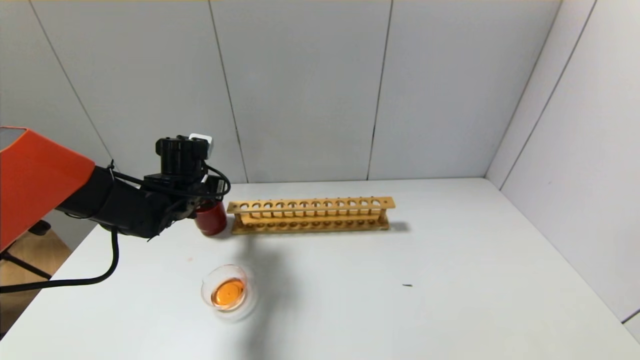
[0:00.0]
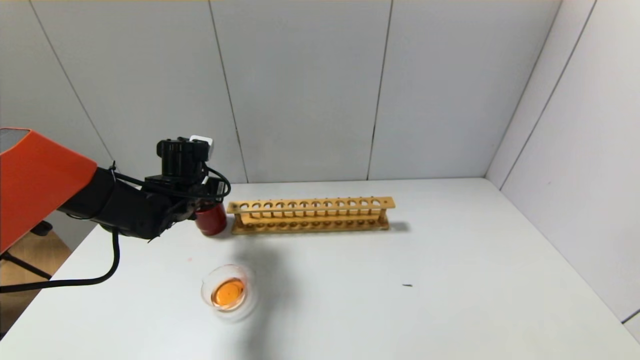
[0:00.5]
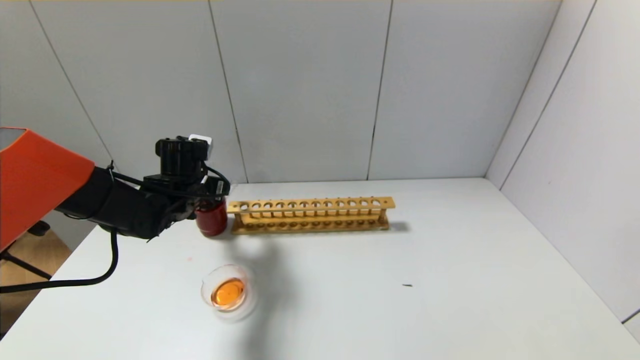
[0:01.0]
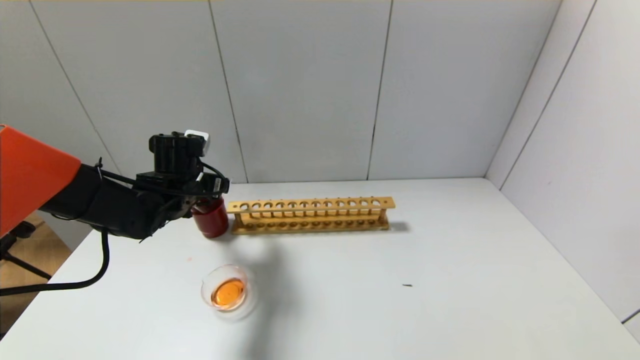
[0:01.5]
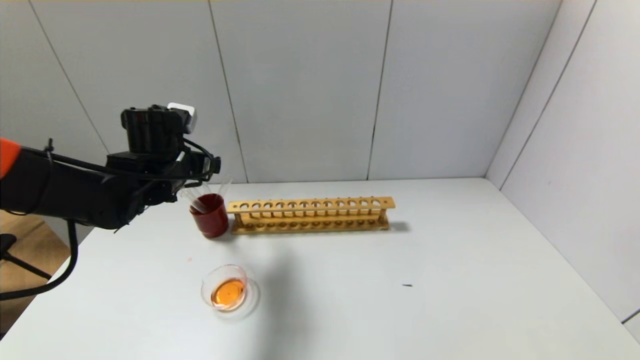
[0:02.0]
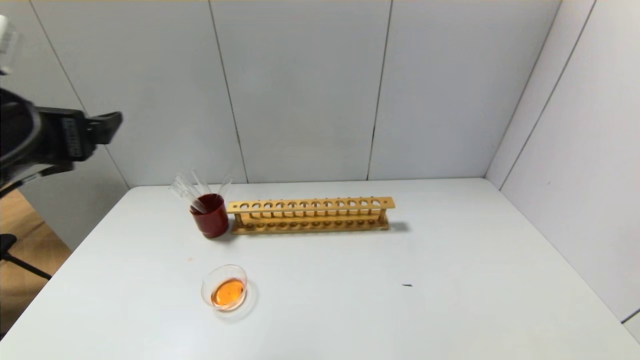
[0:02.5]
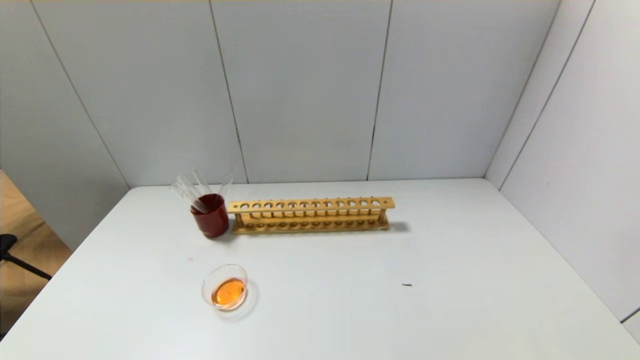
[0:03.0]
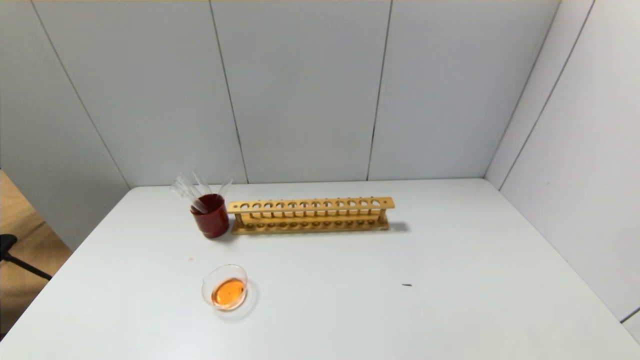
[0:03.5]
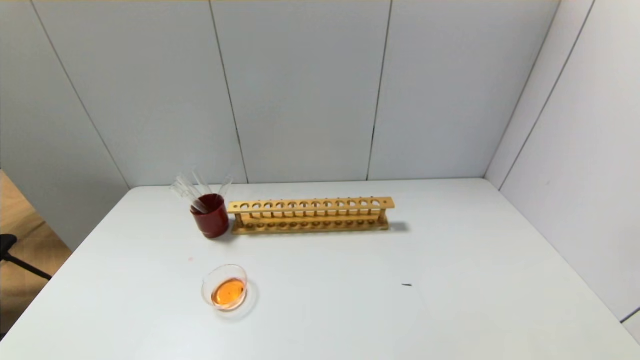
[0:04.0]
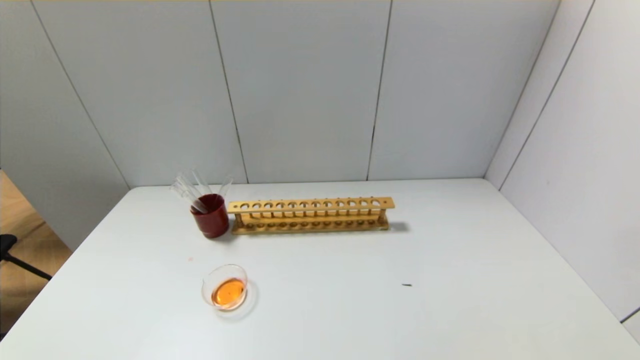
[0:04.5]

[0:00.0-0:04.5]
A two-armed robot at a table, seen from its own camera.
0:00.0 to 0:02.0: The left gripper heads upward, covering about 5 cm, and opens.
0:02.0 to 0:04.5: The left gripper is displaced backward by about 40 cm.
